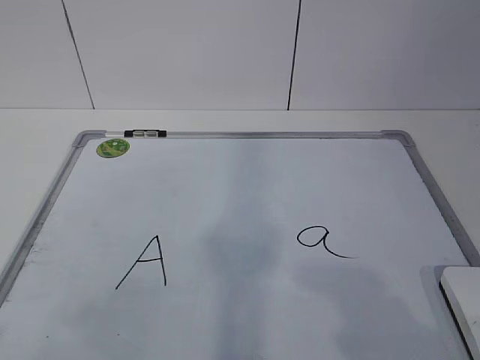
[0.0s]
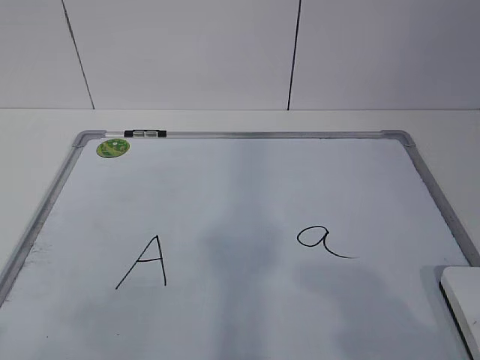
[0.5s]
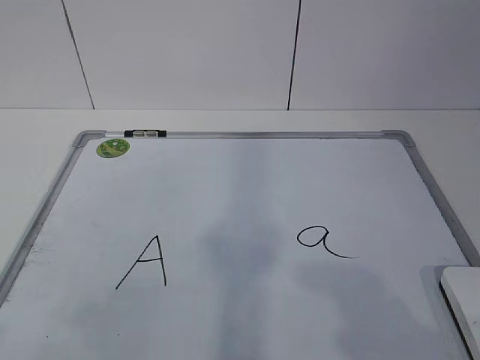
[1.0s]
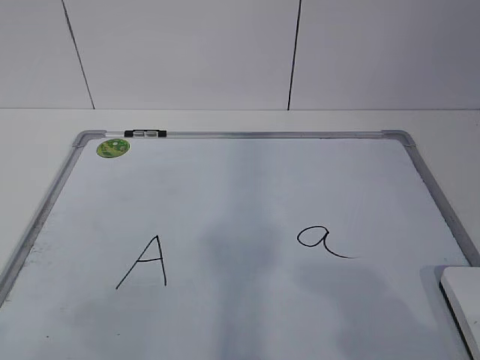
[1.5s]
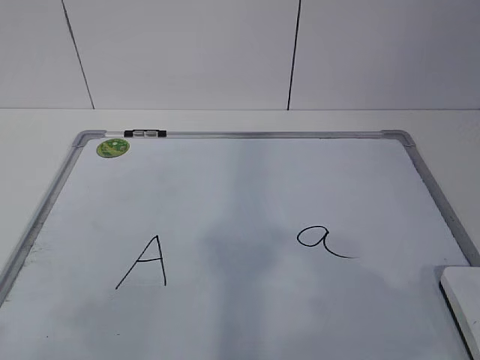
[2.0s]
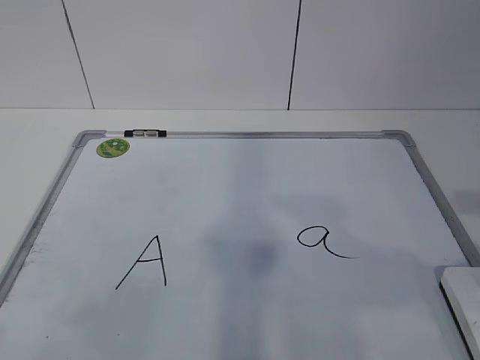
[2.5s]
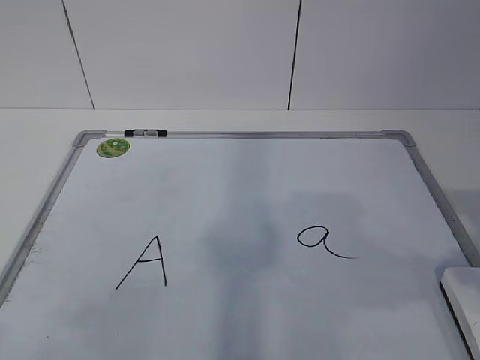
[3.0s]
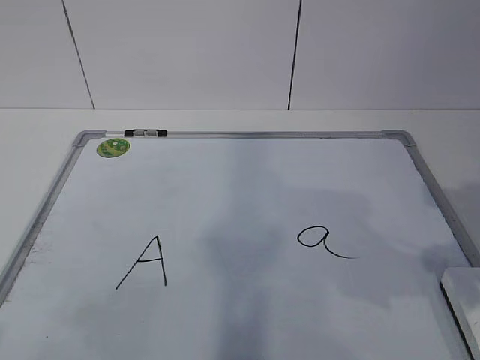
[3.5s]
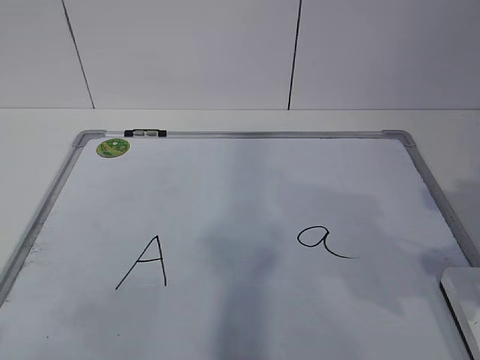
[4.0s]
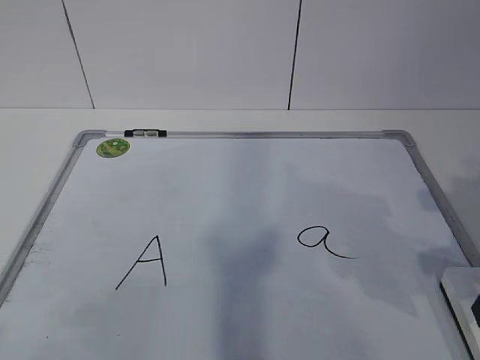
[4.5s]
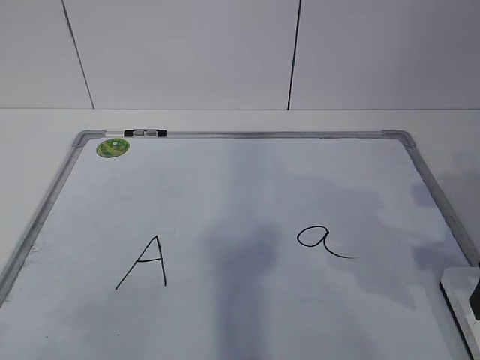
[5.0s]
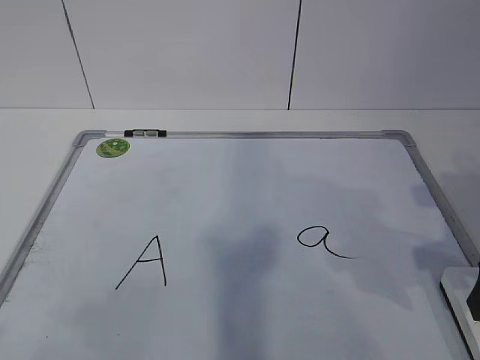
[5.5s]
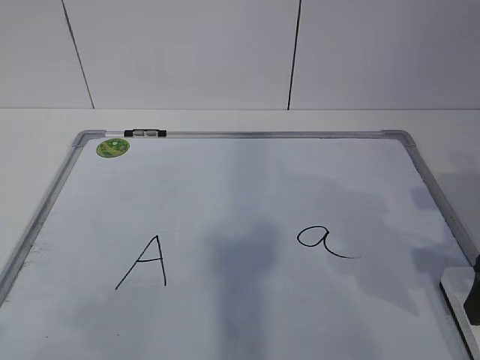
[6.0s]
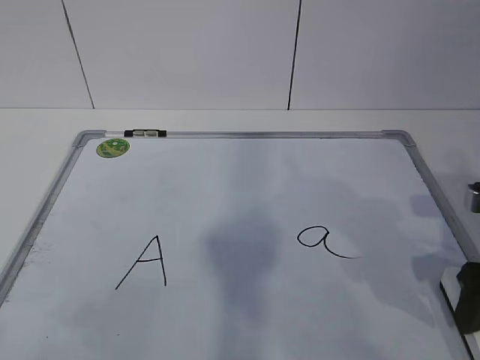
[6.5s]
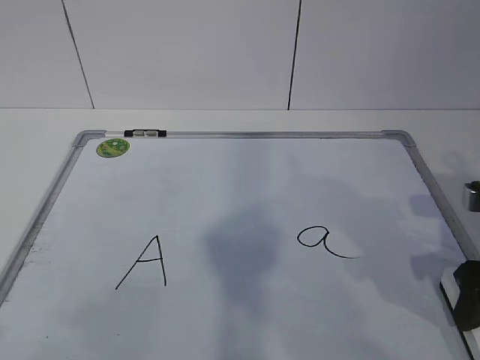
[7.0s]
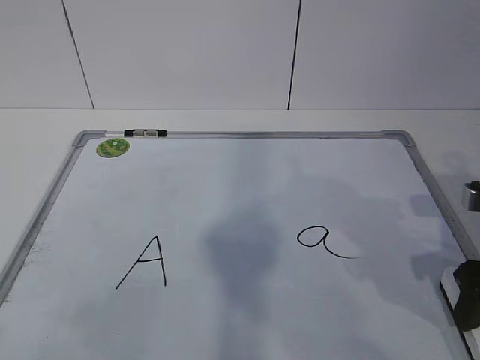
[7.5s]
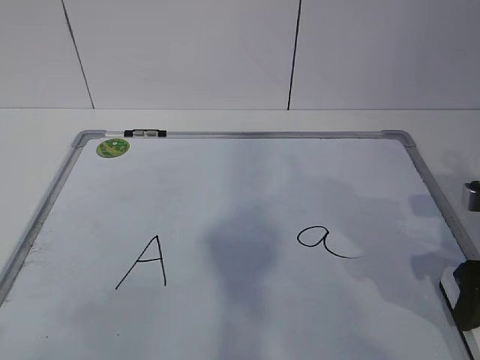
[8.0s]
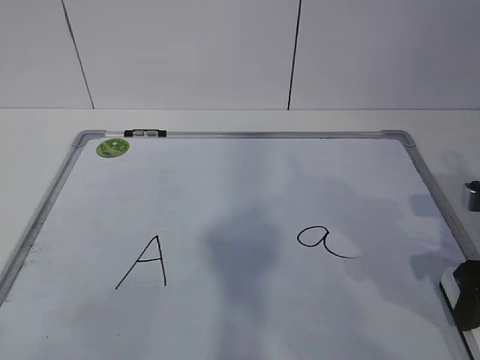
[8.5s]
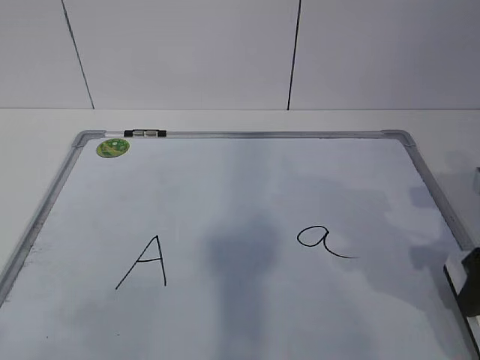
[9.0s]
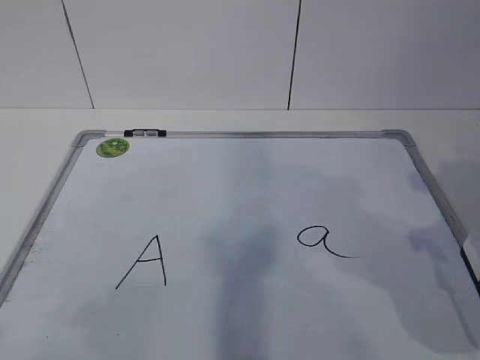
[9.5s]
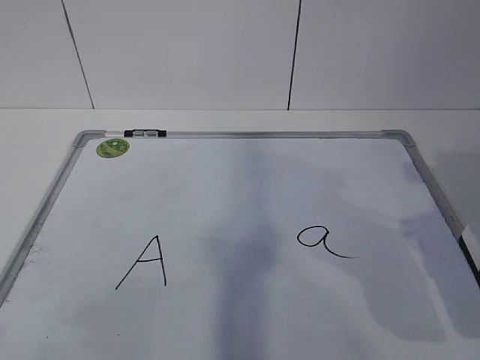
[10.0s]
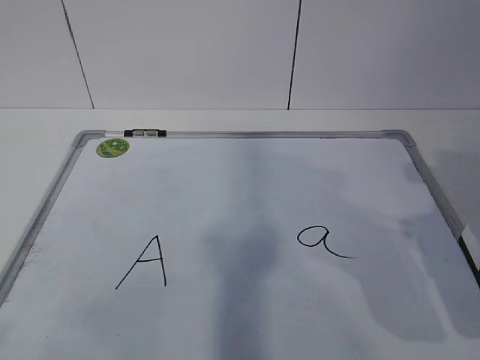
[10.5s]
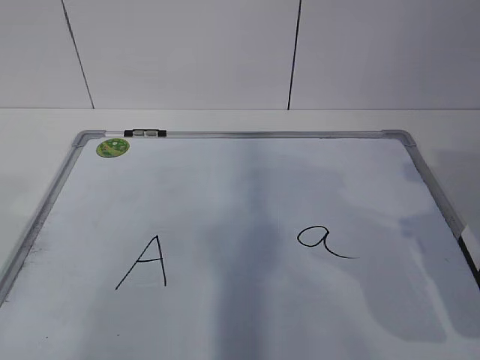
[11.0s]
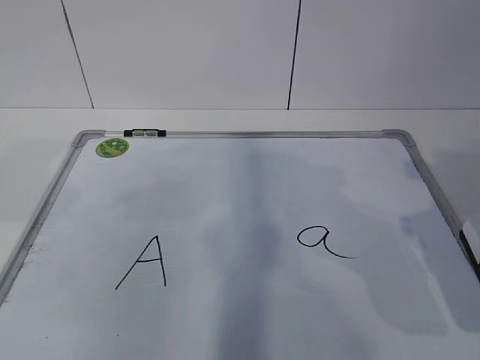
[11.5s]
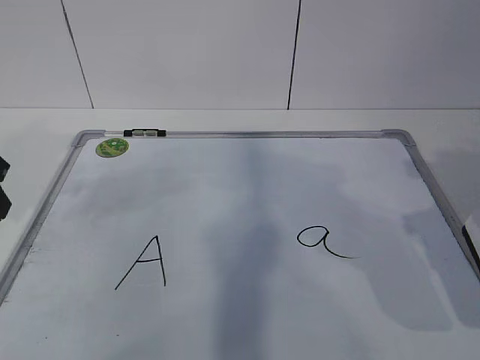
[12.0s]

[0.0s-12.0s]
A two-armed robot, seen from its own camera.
Task of the whole recording: pick up the eraser on the blackboard and erase the letter "a".
Step, 7.5s to 11.5s: Hold the drawing board steady with your left hand.
2.0s to 4.0s: The right gripper heads forward and downward, covering about 15 cm, and opens.
6.0s to 8.0s: The right gripper closes up.
8.0s to 10.0s: The right gripper moves upward, roughly 10 cm.

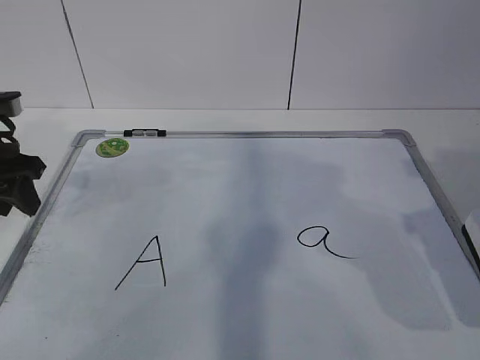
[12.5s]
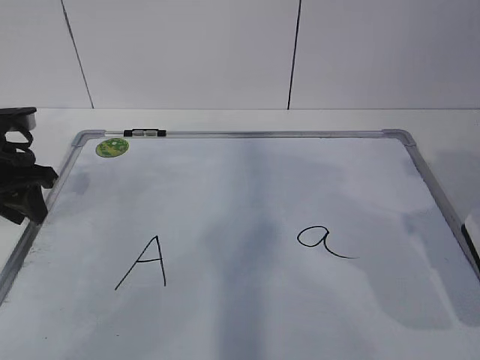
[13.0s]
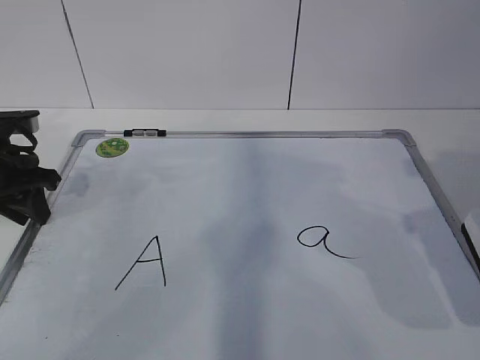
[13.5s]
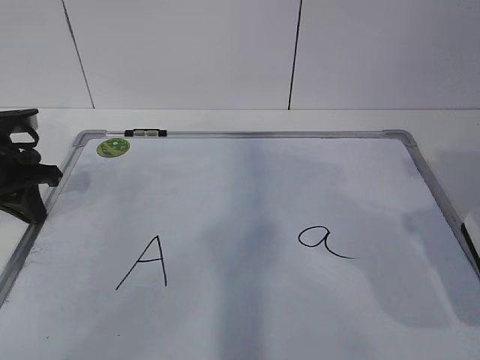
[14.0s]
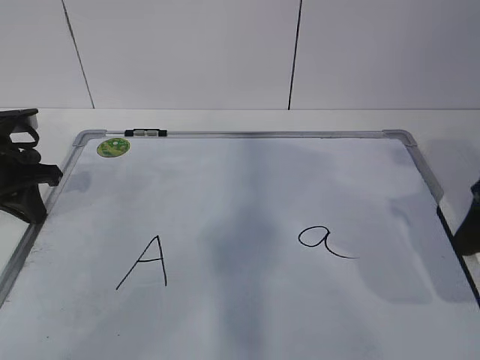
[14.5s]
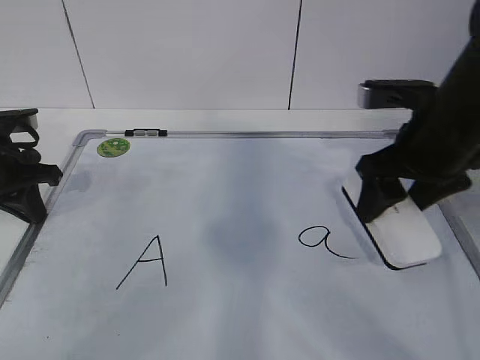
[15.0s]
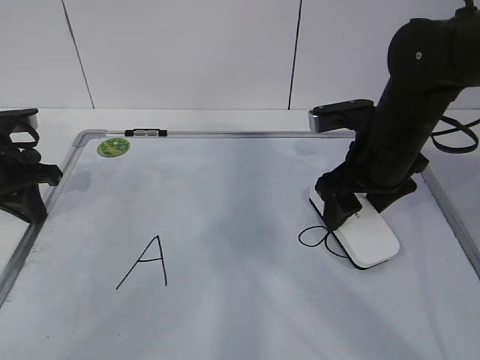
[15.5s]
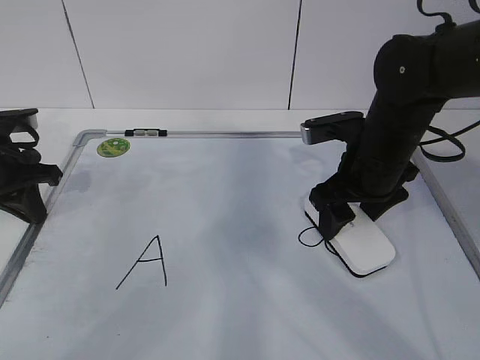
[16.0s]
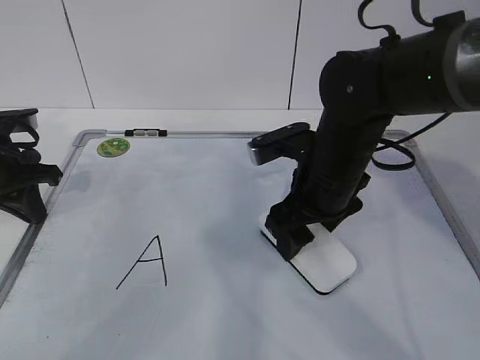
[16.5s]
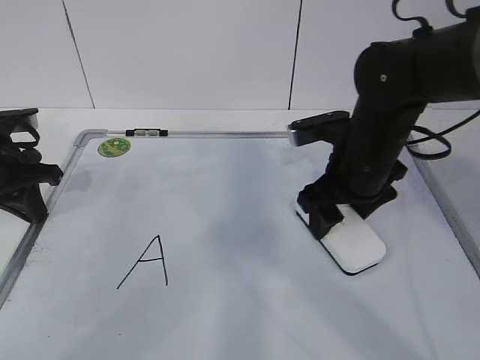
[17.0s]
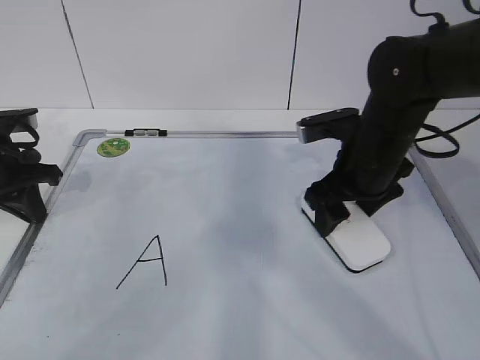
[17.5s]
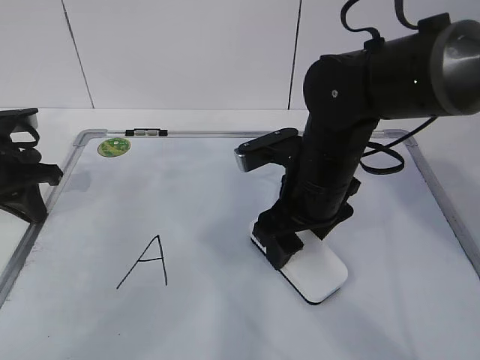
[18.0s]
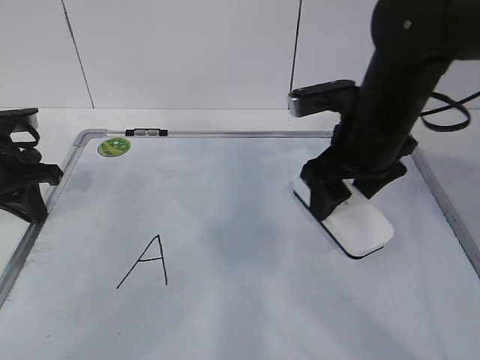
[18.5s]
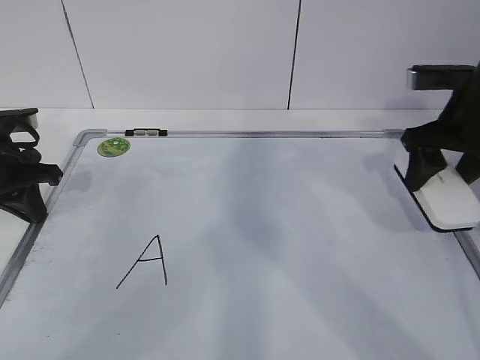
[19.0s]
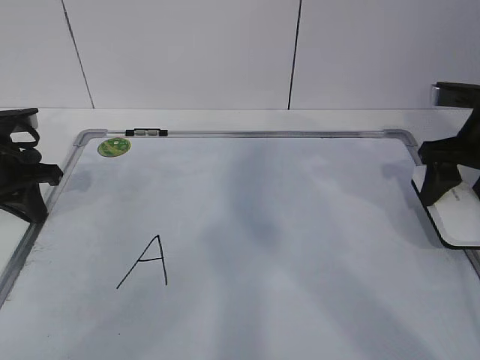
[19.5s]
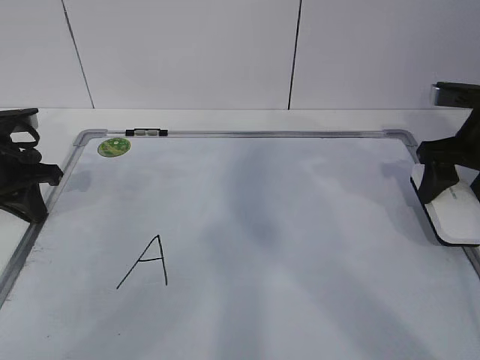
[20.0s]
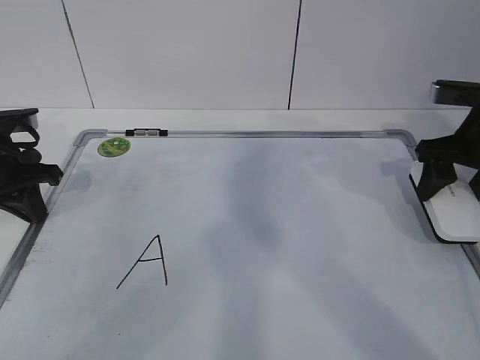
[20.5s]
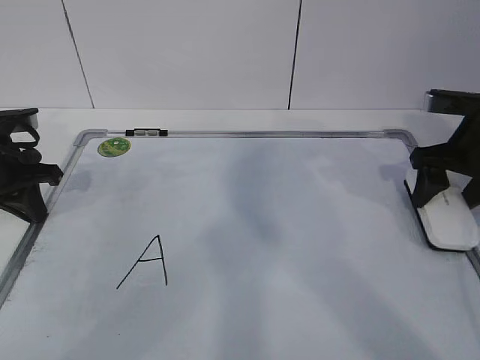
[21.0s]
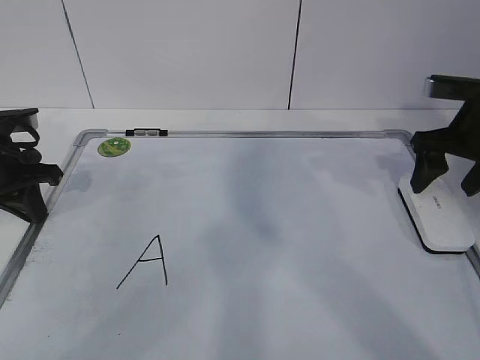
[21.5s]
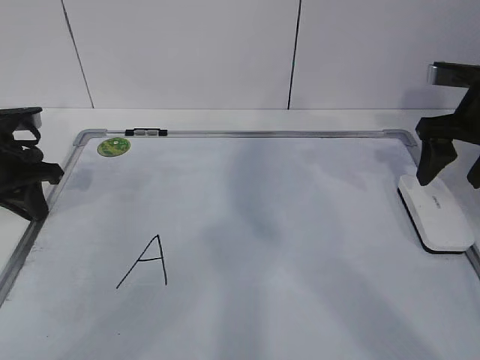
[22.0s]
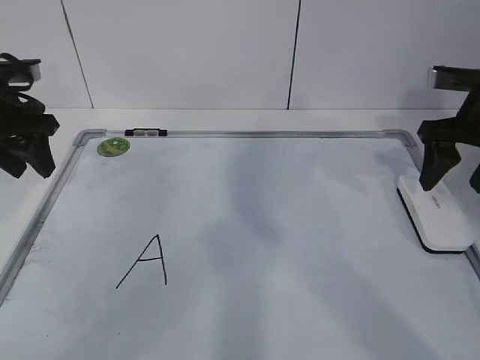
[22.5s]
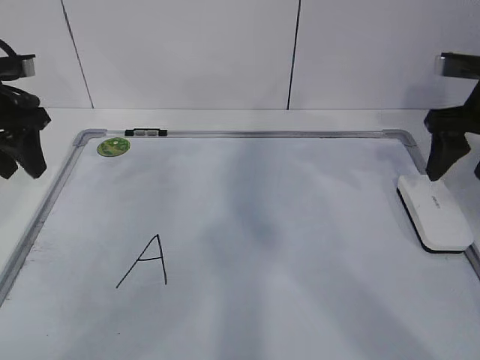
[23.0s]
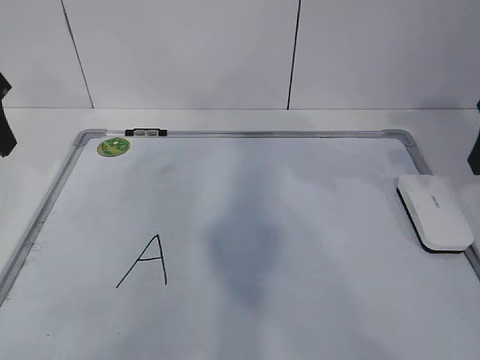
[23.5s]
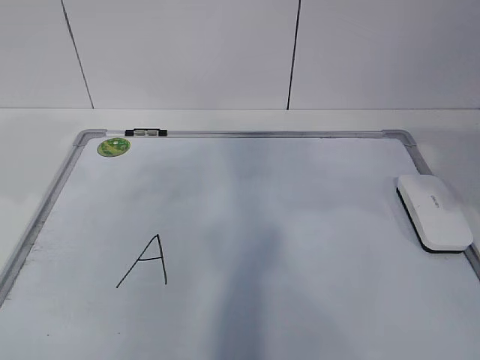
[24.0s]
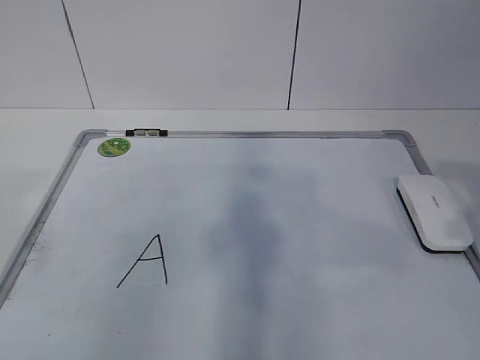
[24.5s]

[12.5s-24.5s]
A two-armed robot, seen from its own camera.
Task of the whole recording: pick up the eraser on the blackboard and erase the letter "a".
Step, 12.5s to 14.5s: Erase the letter a with your right hand.
Step, 15.5s to 17.0s: Put down the eraser with your right hand.
12.5s to 14.5s: The left gripper closes up.
14.5s to 16.5s: The right gripper travels to the left, forward and downward by approximately 20 cm.
16.5s to 18.5s: The right gripper moves left and right over roughly 5 cm, changing direction 2 times.
18.5s to 20.5s: The right gripper travels to the right by about 15 cm.
20.5s to 22.5s: The left gripper is displaced upward by about 5 cm, and opens its fingers. Meanwhile the right gripper opens.
22.5s to 24.5s: Both grippers travel together backward, some 25 cm. The right gripper closes up.

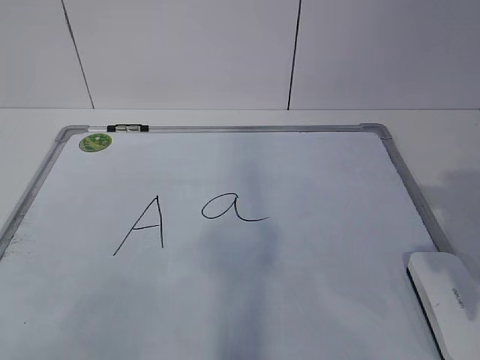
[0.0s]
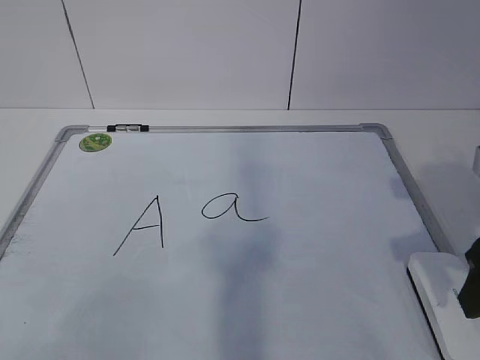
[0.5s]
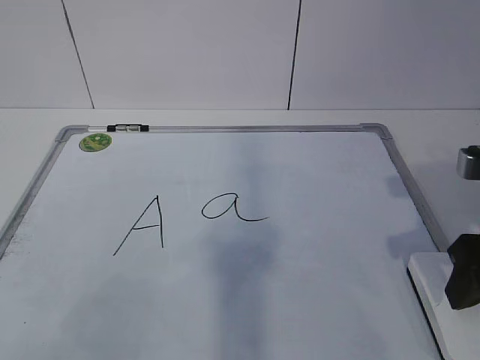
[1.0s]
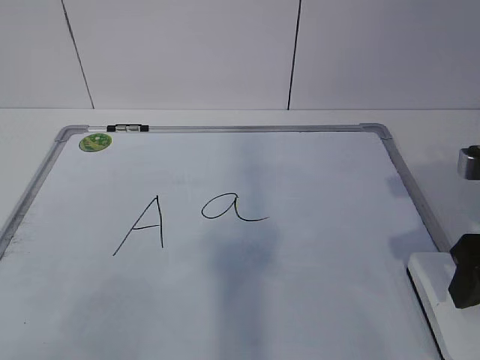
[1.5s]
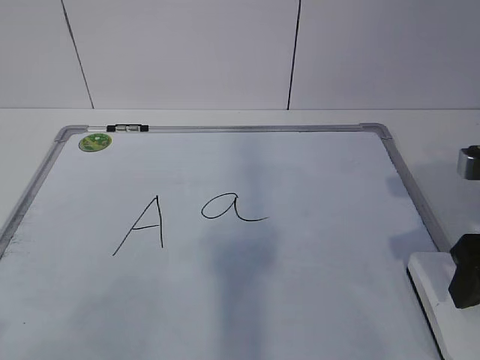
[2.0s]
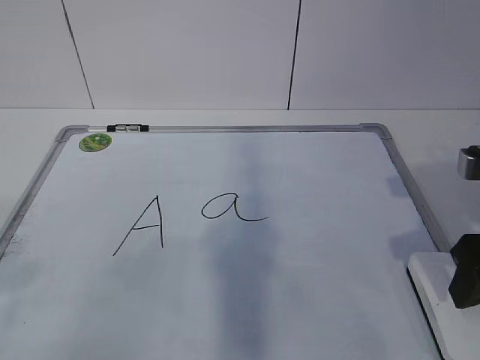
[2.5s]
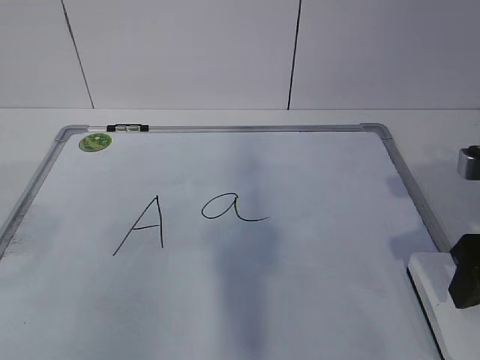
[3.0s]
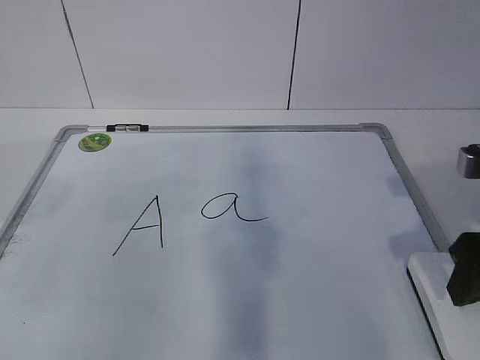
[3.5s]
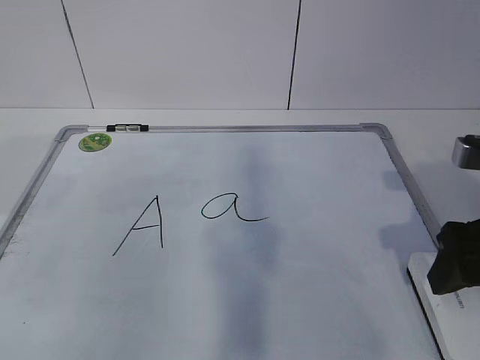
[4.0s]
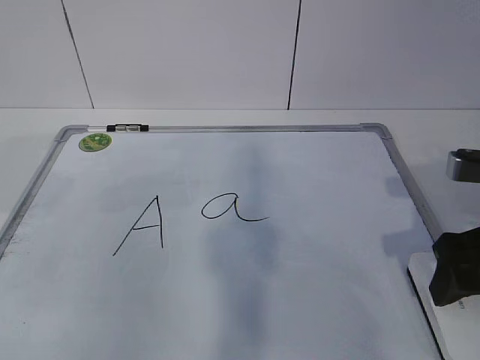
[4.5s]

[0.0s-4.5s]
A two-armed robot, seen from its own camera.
Task of the whole recording: pick up the eraser on the blackboard and erase the letter "a".
0.0s to 2.0s: The right gripper ends up about 5 cm from where it was.
